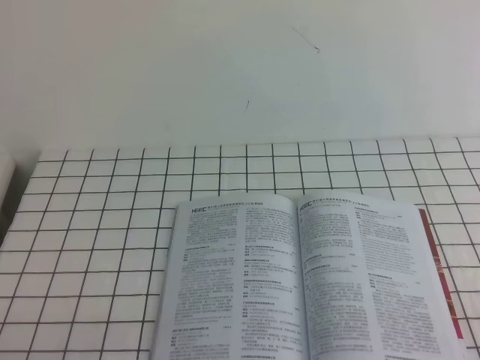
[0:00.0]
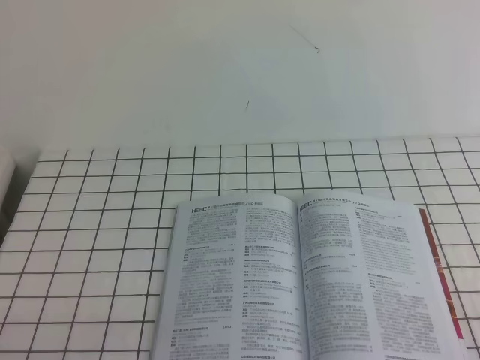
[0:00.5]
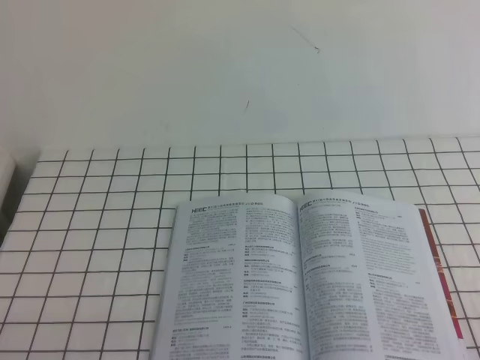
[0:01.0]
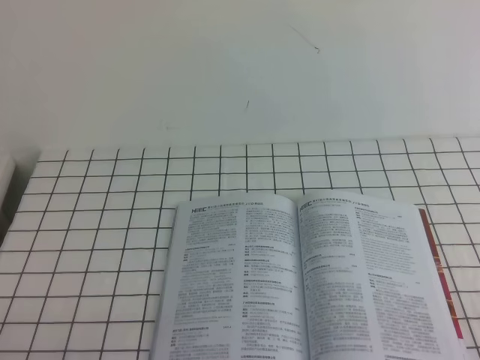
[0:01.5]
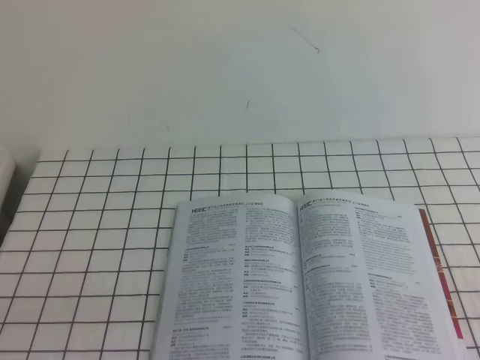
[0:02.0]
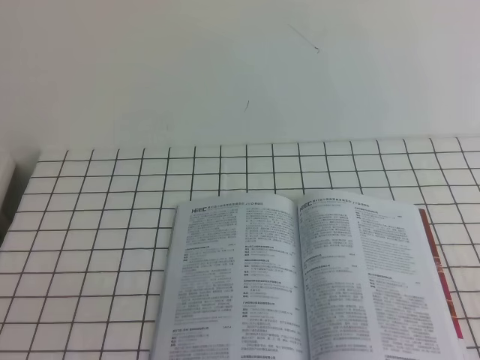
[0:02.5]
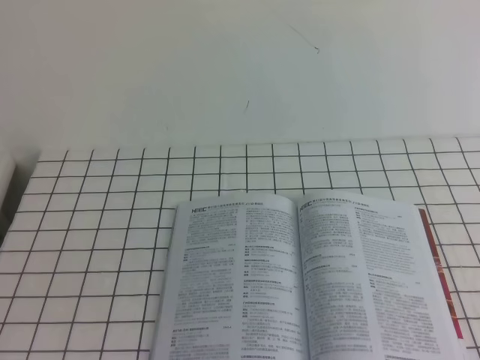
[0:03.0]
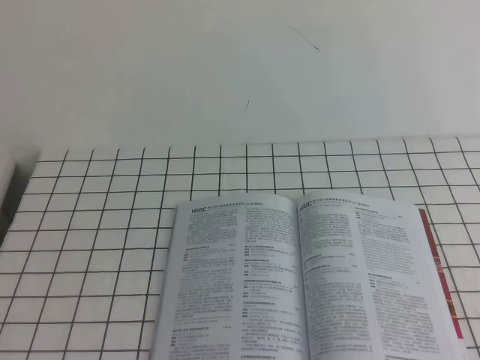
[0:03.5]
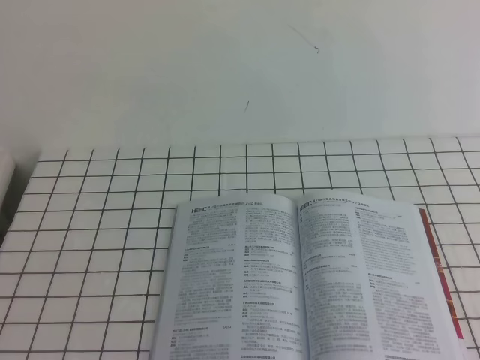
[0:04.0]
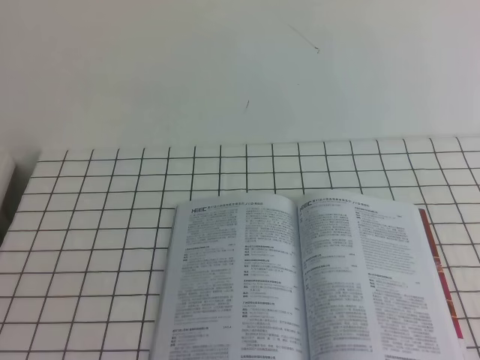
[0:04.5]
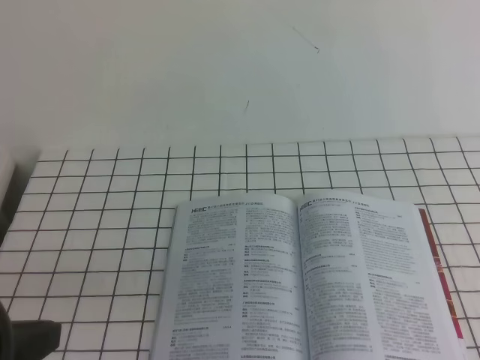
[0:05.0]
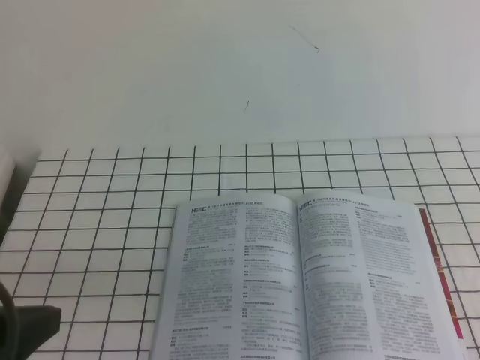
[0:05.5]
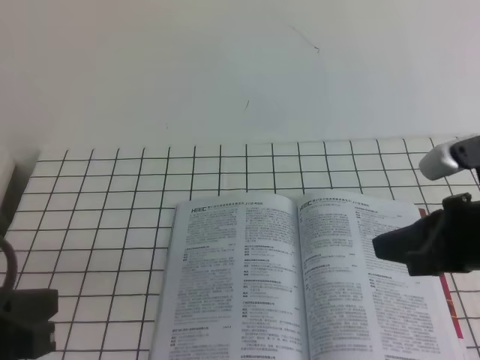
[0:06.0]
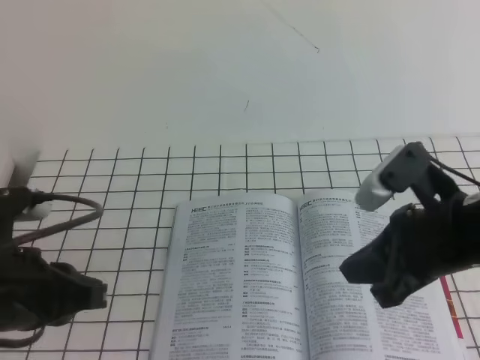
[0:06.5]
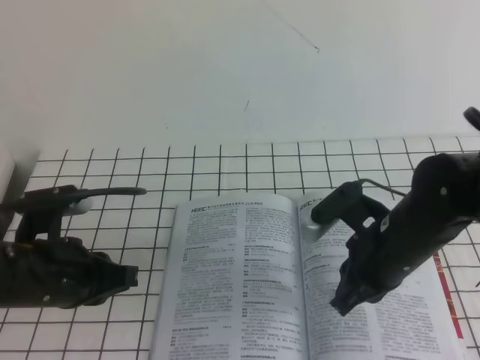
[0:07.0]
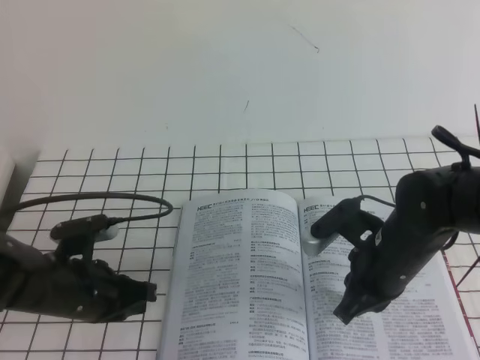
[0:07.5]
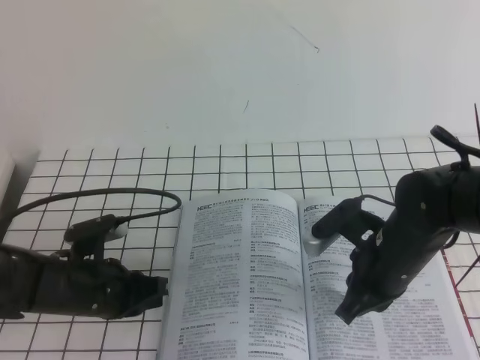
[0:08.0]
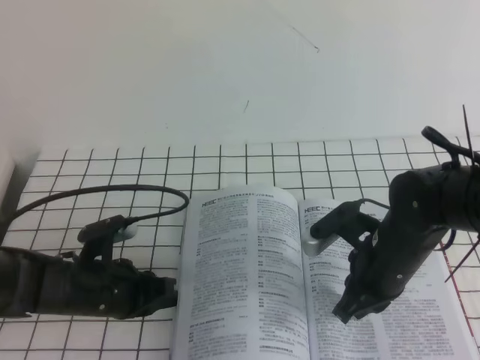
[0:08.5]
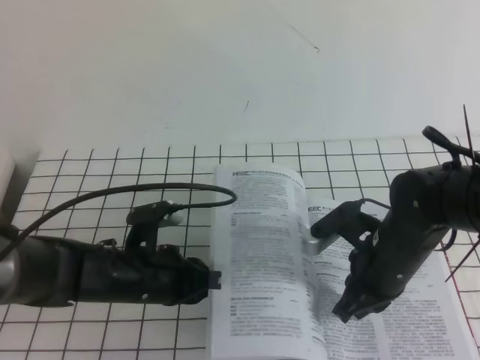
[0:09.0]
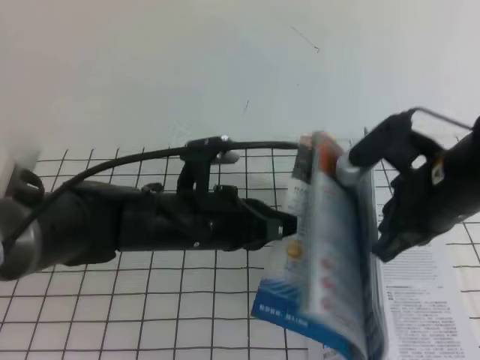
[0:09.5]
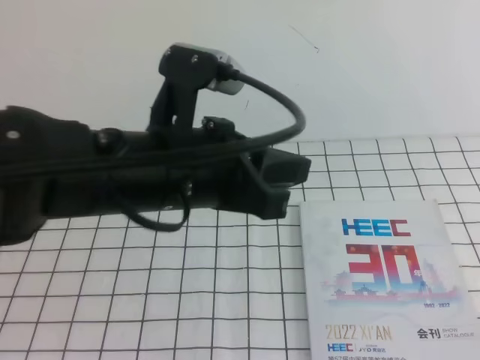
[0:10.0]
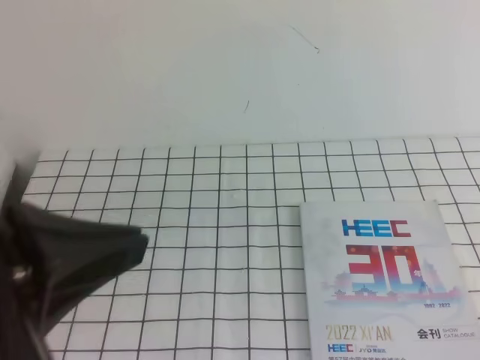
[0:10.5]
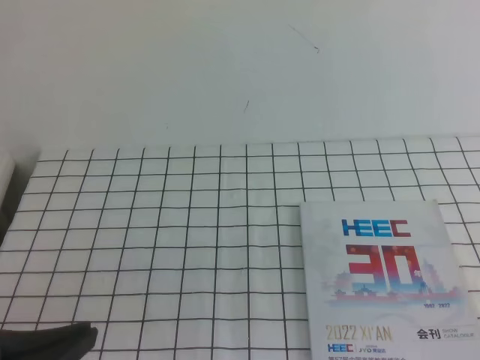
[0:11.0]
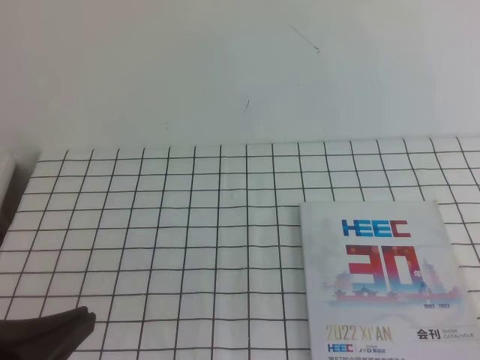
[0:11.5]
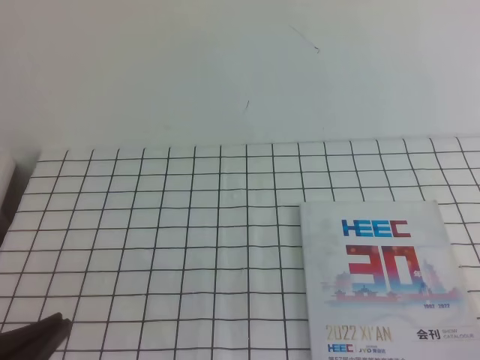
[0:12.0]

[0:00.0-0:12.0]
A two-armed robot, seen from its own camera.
Task of the whole recording: on the white tablecloth, hold the book with one hand and close it with the other.
0:04.0 to 0:06.0: The left gripper moves forward, roughly 5 cm; the right gripper shifts approximately 15 cm forward, downward and to the left.
0:06.0 to 0:08.0: The right gripper shifts some 15 cm downward, to the left and forward. The left gripper moves downward and forward, roughly 25 cm.
0:08.0 to 0:10.0: The left gripper moves upward and to the right, some 25 cm. The right gripper is displaced upward by about 30 cm.
0:10.0 to 0:12.0: The left gripper is displaced backward, to the left and downward by roughly 25 cm, while the right gripper moves downward, backward and to the right, approximately 25 cm.

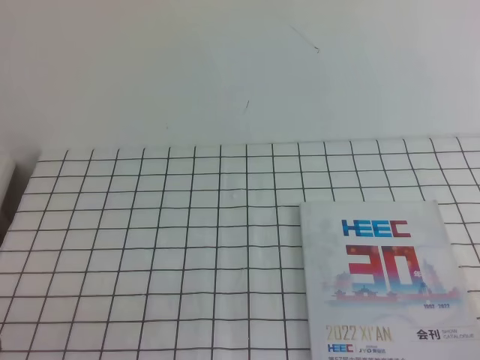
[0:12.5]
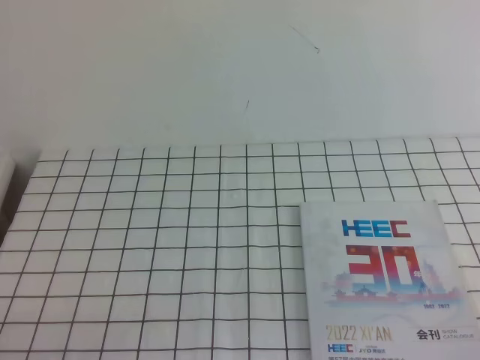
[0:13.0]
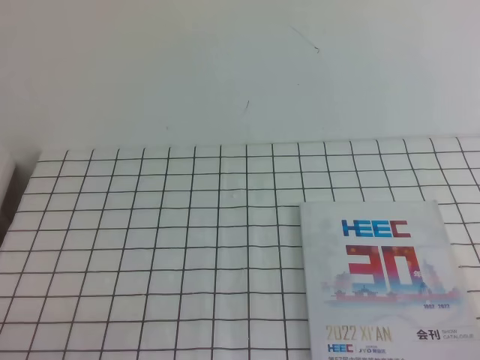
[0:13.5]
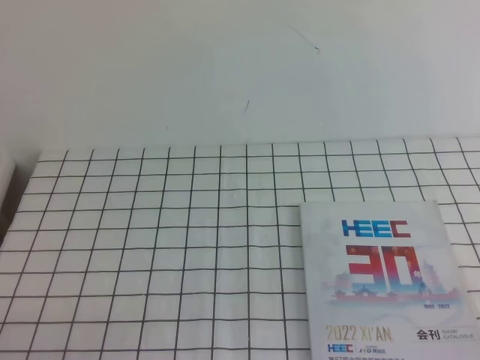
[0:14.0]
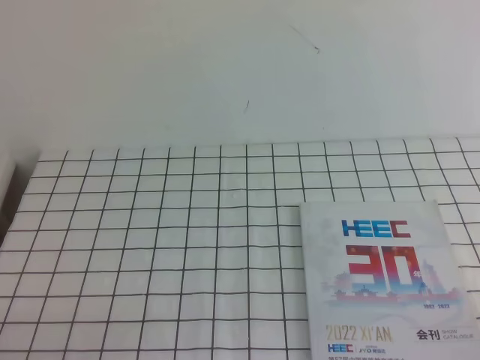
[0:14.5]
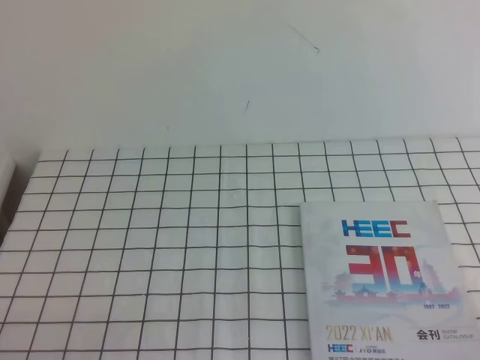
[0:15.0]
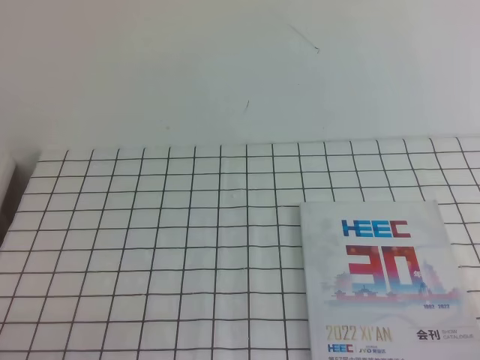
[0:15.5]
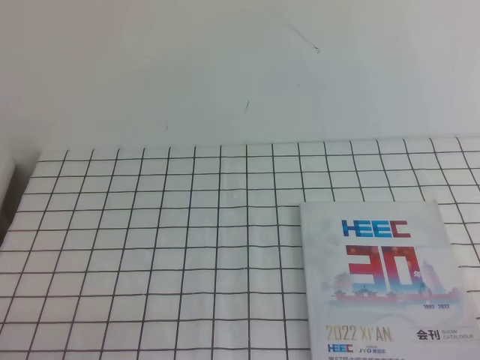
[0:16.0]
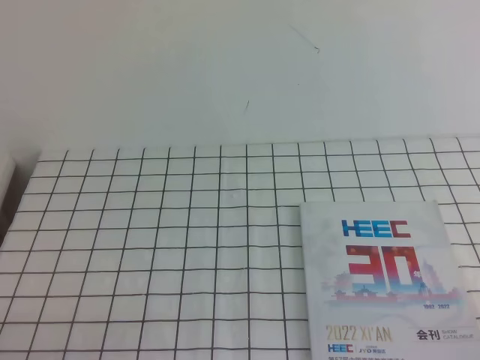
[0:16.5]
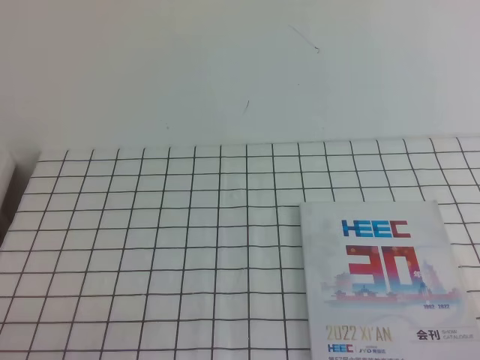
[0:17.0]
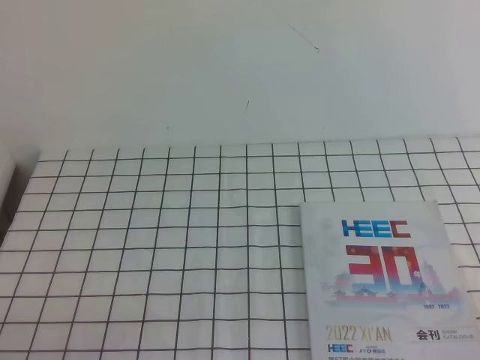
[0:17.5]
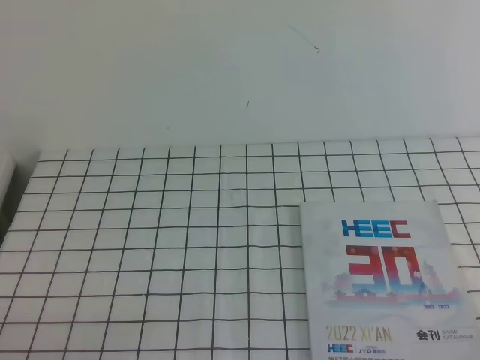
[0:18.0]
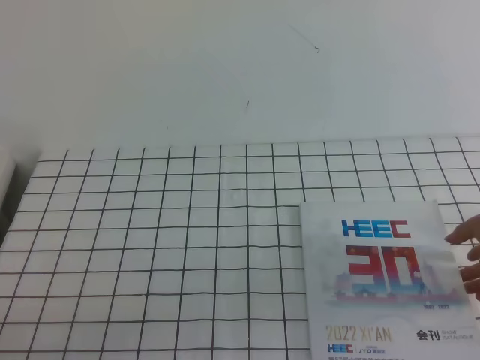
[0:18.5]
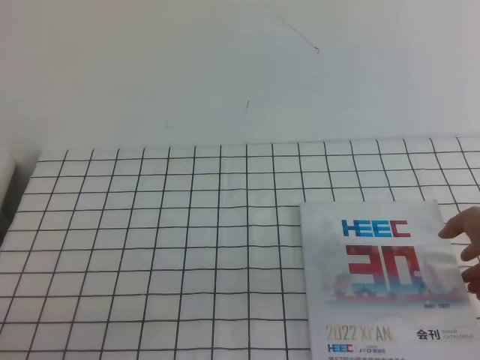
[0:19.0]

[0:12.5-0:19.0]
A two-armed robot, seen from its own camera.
Task of the whole recording: on the white tablecloth, hold the book with one hand and close it with the other.
Step, 0:12.5 to 0:19.0: Close the open book.
0:14.5 to 0:19.0: Both grippers stay put.

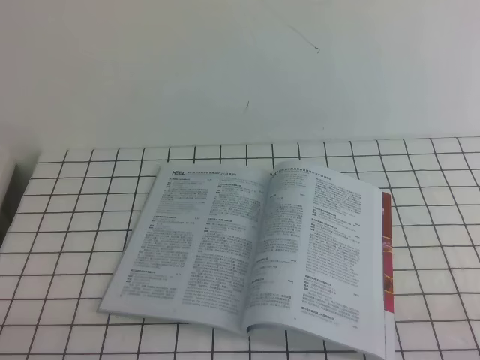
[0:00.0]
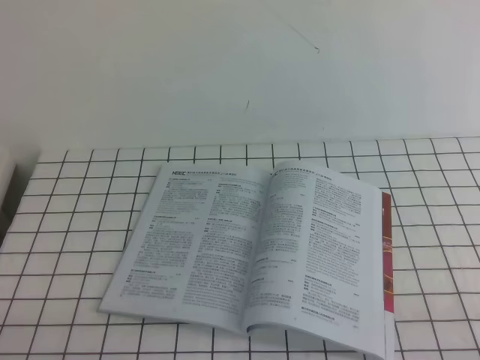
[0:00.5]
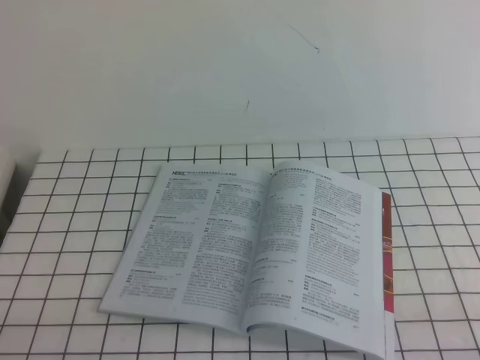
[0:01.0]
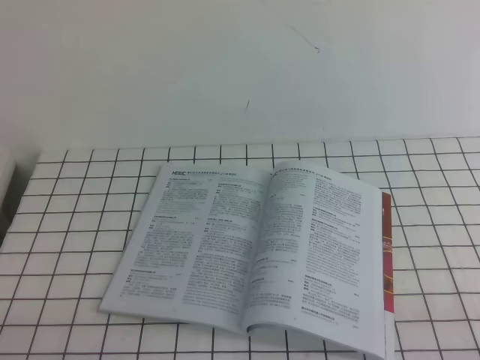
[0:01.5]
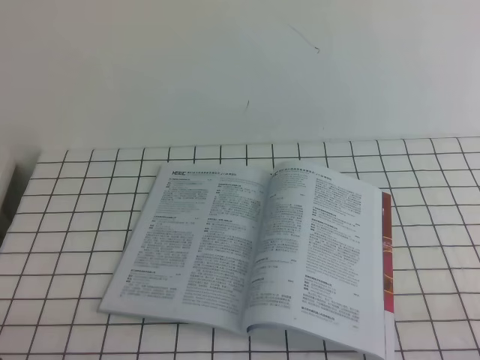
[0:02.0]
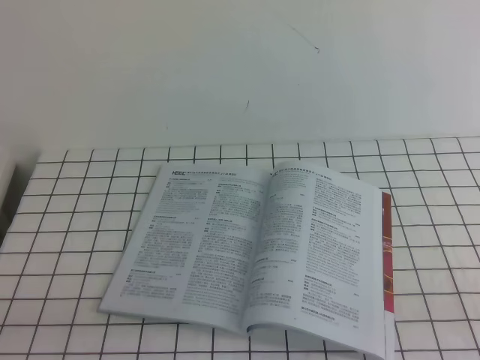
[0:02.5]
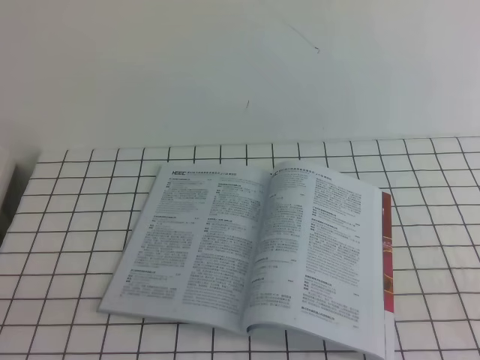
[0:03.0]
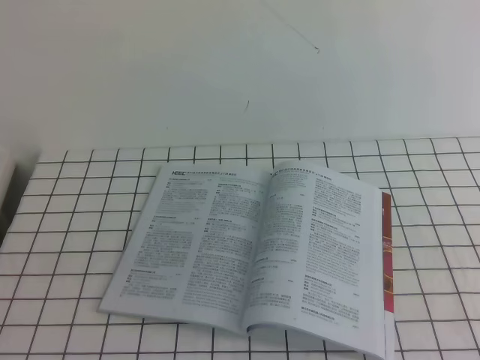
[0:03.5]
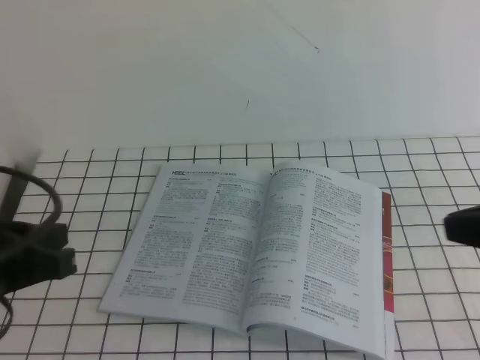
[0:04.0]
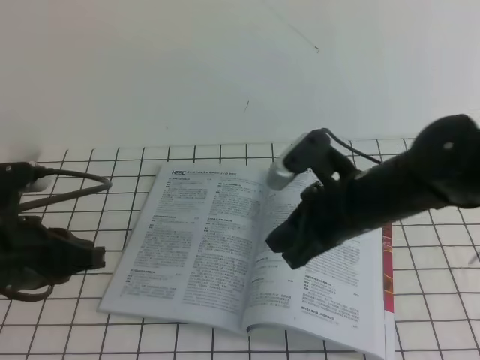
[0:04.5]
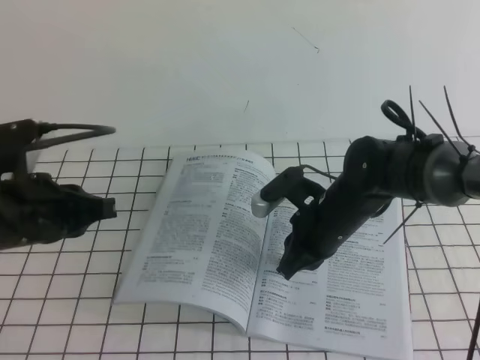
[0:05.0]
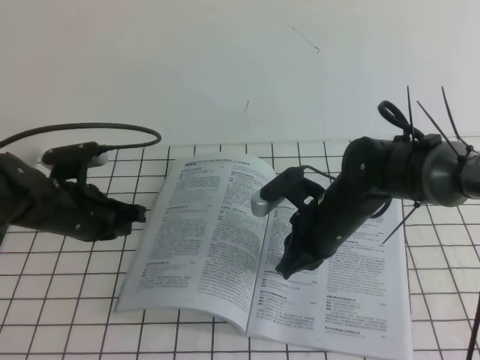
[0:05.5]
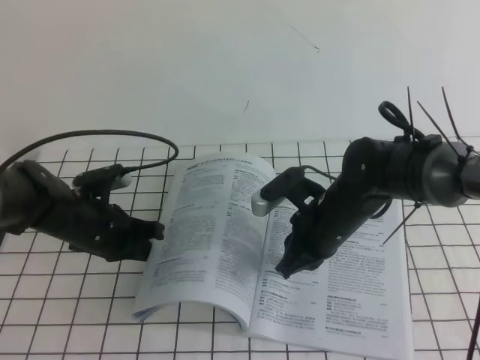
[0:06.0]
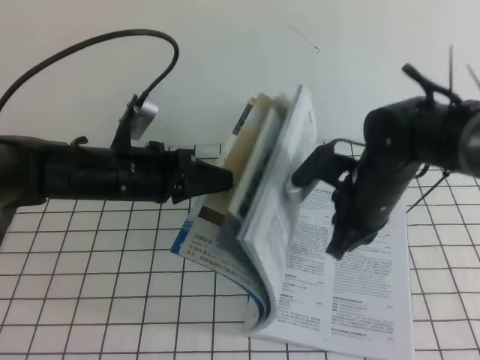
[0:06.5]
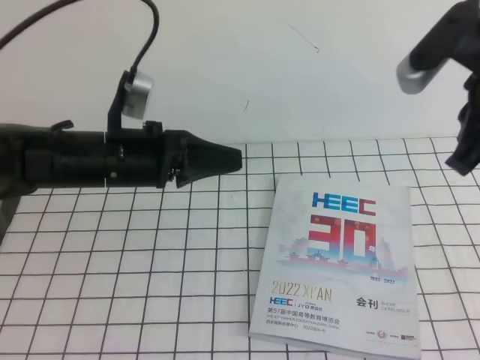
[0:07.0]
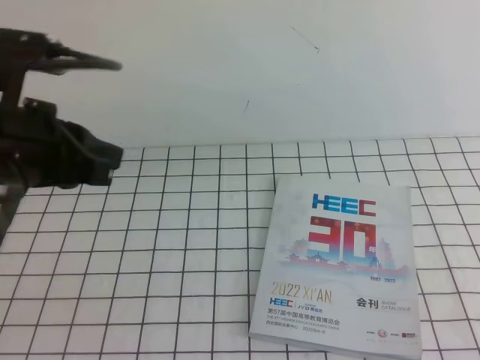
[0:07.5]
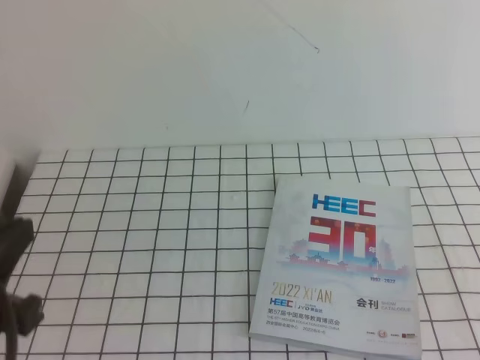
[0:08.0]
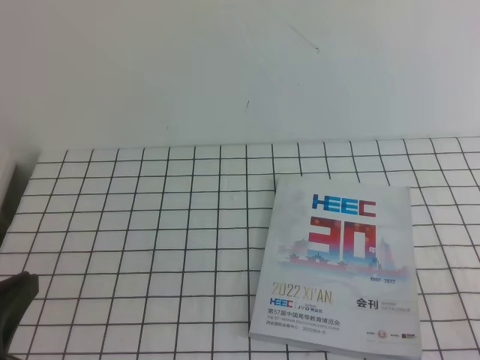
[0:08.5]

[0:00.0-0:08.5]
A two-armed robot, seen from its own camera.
Task of the whole recording: on the white tablecloth, hold the book with one hand and close it with the other.
0:00.0 to 0:02.0: Both grippers stay about where they are.
0:02.0 to 0:04.0: The left gripper is displaced upward and forward by some 15 cm; the right gripper is displaced upward, forward and to the left by about 20 cm.
0:04.0 to 0:06.5: The right gripper is displaced forward, to the left and downward by roughly 25 cm, while the left gripper moves forward, downward and to the right, approximately 20 cm.
0:06.5 to 0:08.5: The right gripper goes some 35 cm backward and to the right. The left gripper goes roughly 25 cm backward.
